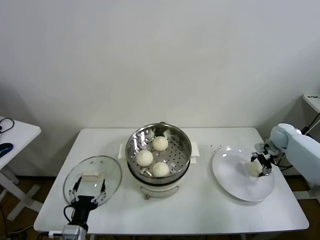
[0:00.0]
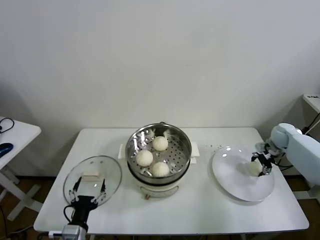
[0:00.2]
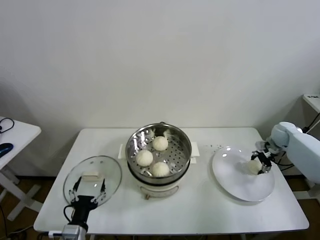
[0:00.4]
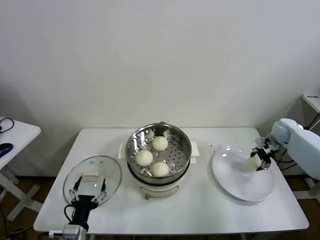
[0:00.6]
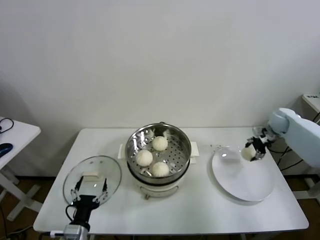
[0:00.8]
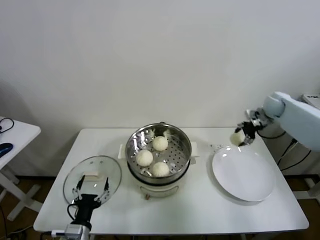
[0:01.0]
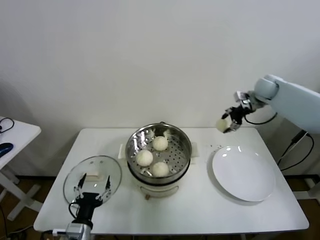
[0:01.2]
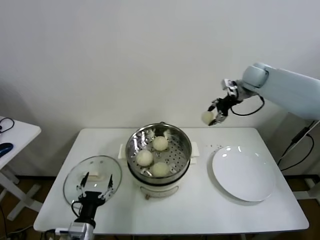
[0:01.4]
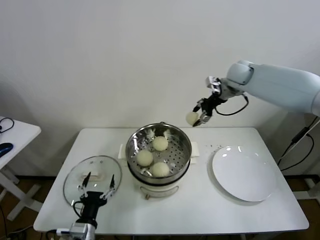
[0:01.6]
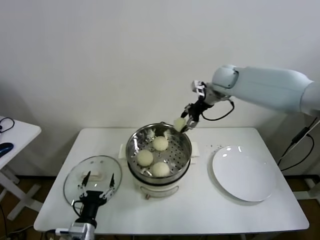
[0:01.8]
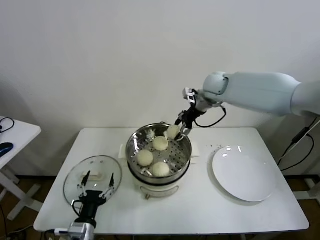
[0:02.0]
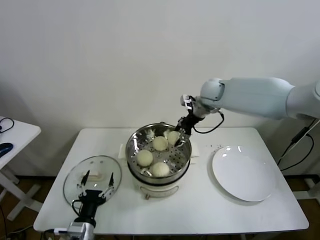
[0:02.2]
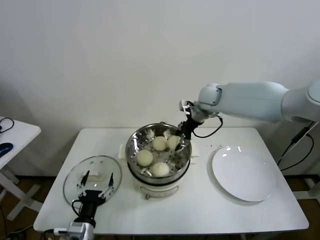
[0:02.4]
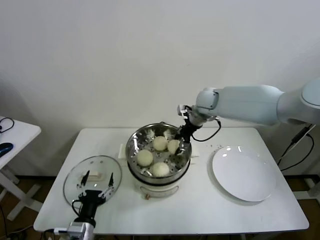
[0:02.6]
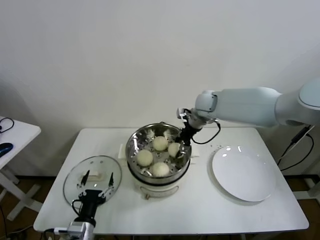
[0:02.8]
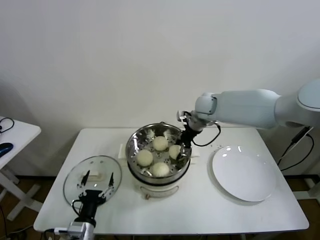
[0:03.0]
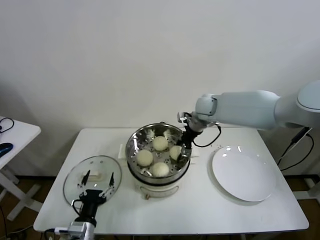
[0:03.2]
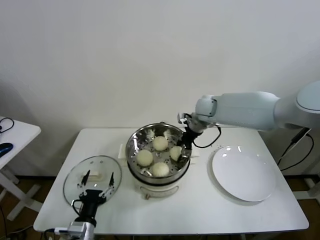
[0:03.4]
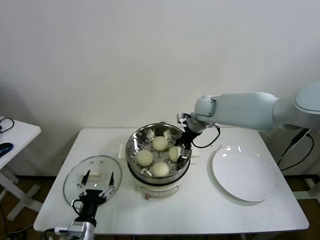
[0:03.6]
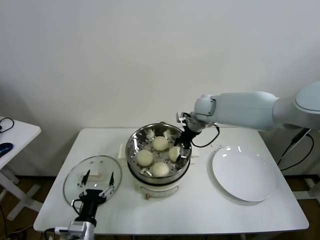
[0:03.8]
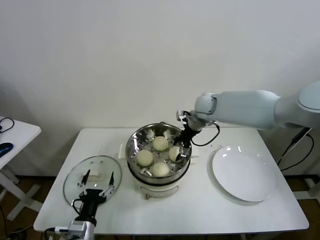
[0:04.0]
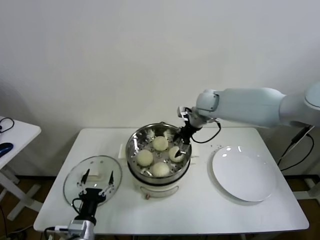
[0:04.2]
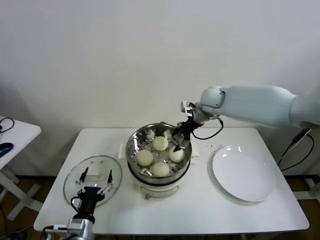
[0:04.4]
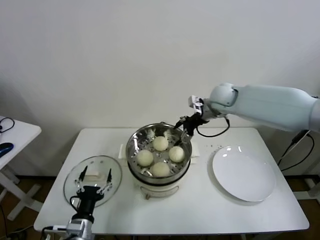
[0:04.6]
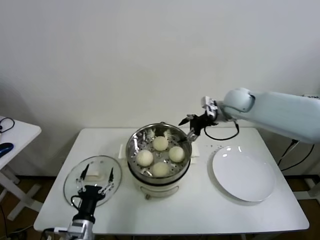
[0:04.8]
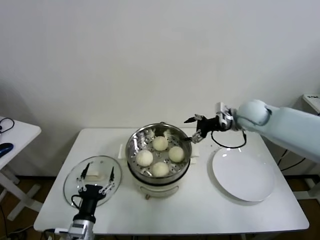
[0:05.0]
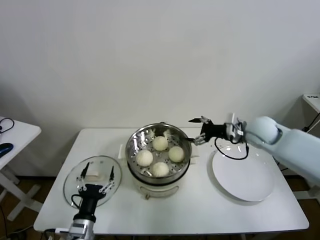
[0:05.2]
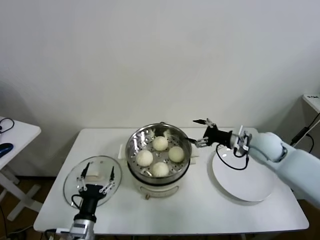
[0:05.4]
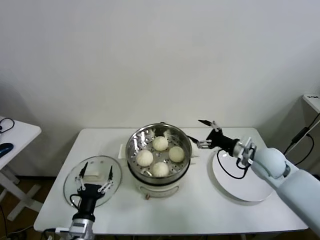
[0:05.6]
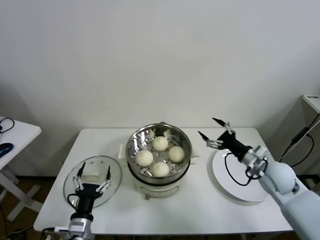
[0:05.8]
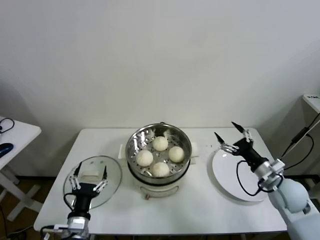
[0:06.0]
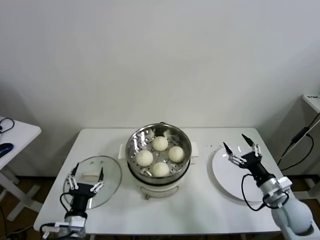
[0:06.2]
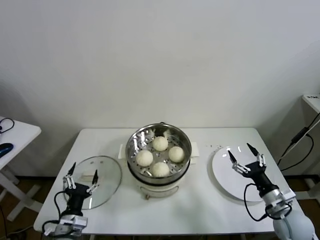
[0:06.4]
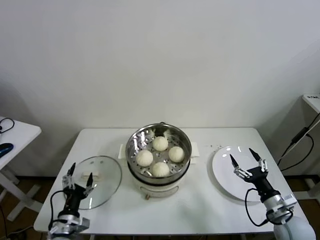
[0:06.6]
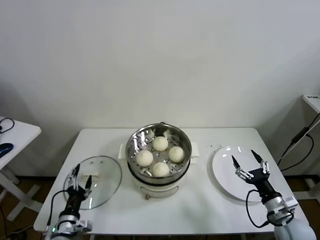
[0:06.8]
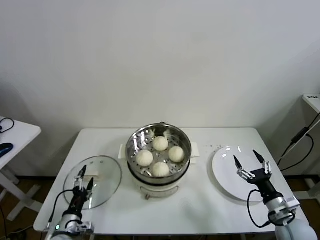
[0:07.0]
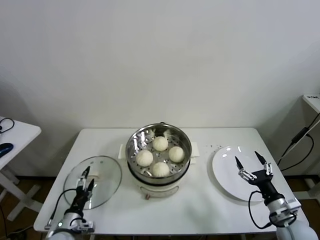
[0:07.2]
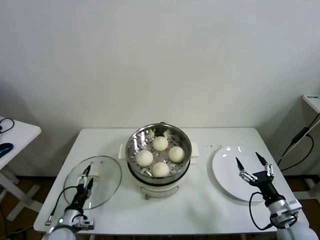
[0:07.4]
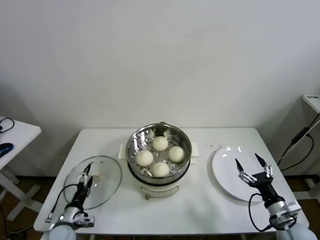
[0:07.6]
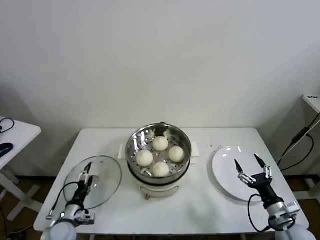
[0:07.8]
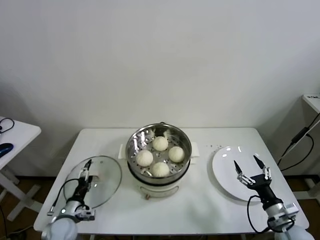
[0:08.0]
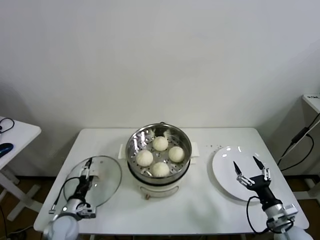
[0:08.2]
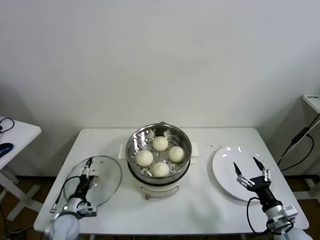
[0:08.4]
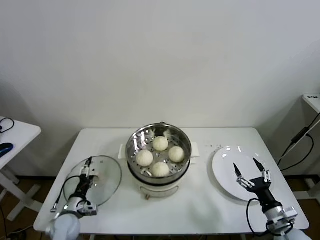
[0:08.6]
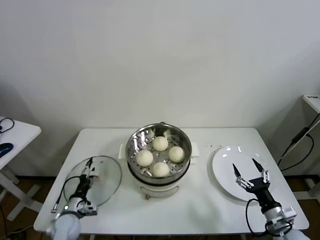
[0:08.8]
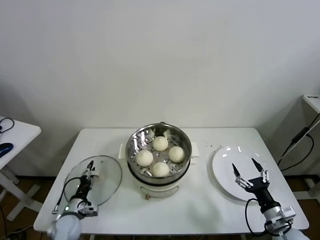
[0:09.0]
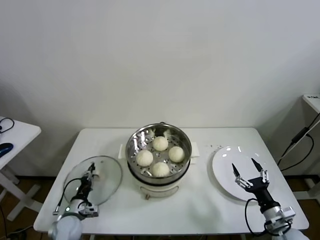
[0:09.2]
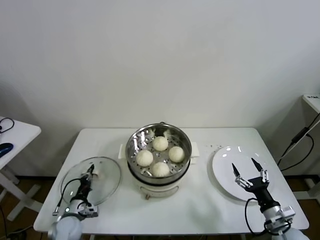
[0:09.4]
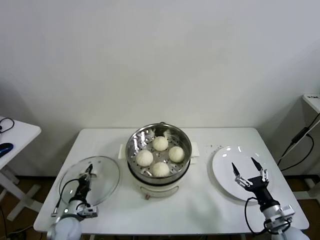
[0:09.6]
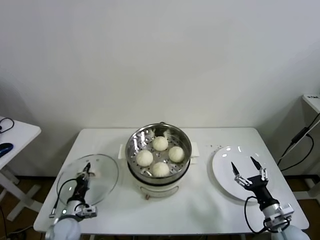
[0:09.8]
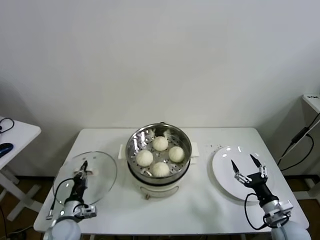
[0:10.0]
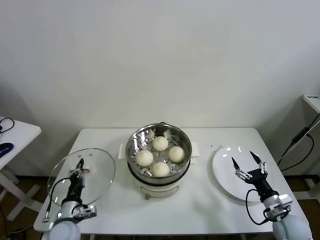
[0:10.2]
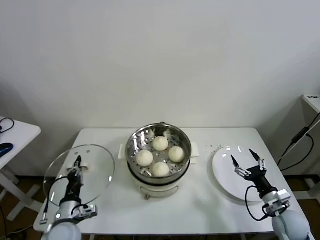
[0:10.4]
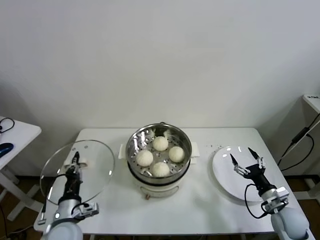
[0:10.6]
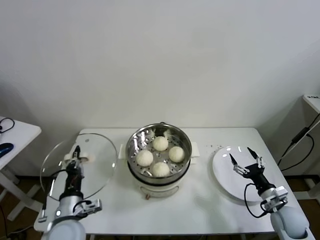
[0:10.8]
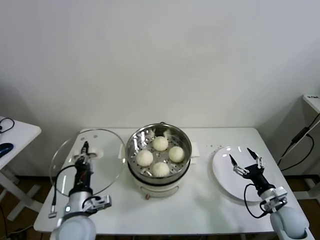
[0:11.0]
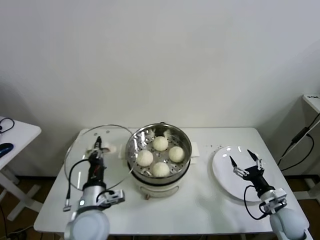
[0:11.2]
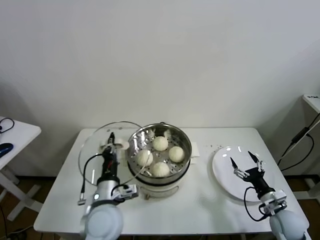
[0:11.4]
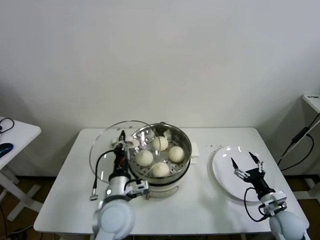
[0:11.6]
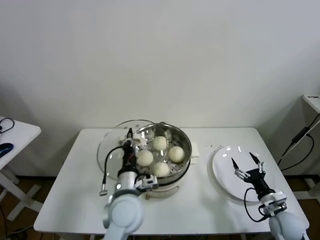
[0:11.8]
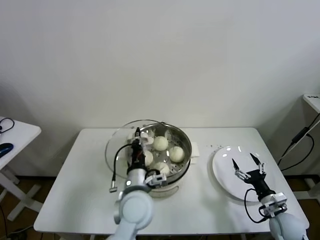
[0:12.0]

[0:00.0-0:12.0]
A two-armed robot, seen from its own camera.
Task of the whole recording: take steamed baozi put them in steamer.
Step, 0:00.2 to 0:03.8: Place the baozi on the steamer with right gripper.
Step, 0:04.0 to 0:09.2: Grasp the pot lid with left gripper.
0:00.0 to 0:01.6: The right gripper travels upward and to the left by approximately 35 cm, and closes up.
0:01.6 to 0:03.0: The right gripper heads downward and to the left, covering approximately 15 cm.
0:03.0 to 0:04.4: The right gripper opens its fingers.
0:04.4 to 0:06.0: The right gripper goes approximately 35 cm backward, to the right and downward.
0:06.0 to 0:07.6: The right gripper heads backward and downward, covering approximately 15 cm, while the left gripper travels to the left, downward and forward by about 15 cm.
0:07.6 to 0:09.0: The left gripper closes.
0:09.0 to 0:10.4: The left gripper moves upward, some 10 cm, and closes. The right gripper changes place by about 5 cm.
0:10.4 to 0:12.0: The left gripper travels to the right and upward by about 25 cm.

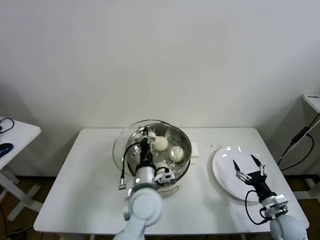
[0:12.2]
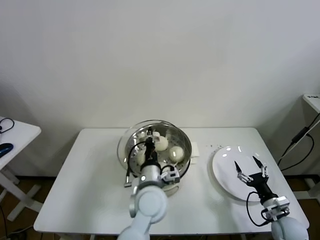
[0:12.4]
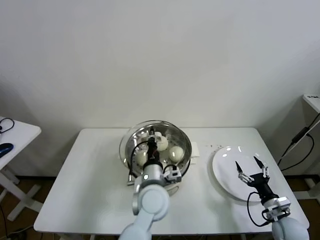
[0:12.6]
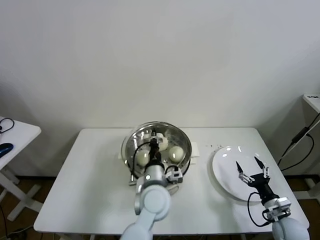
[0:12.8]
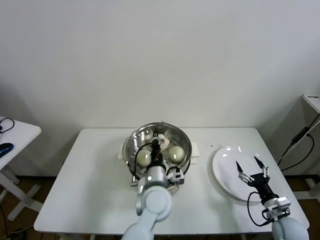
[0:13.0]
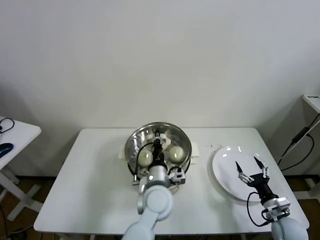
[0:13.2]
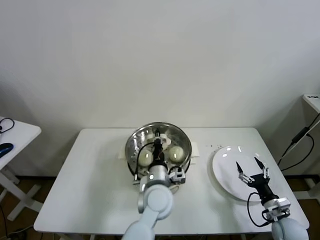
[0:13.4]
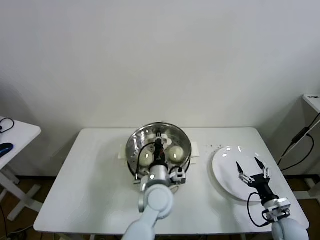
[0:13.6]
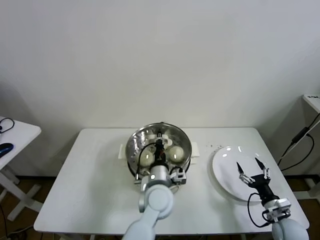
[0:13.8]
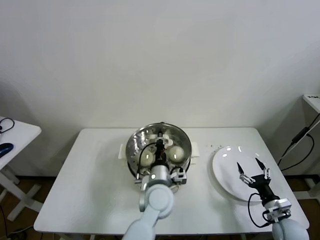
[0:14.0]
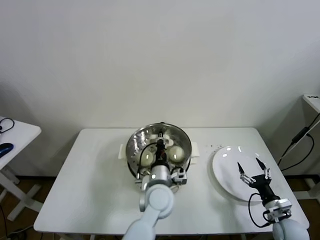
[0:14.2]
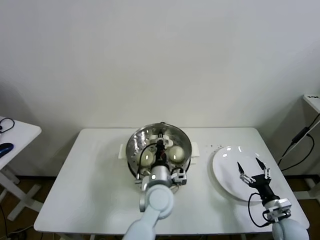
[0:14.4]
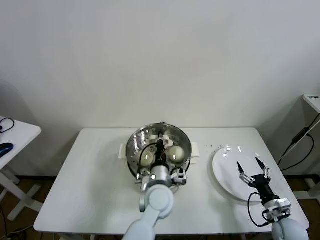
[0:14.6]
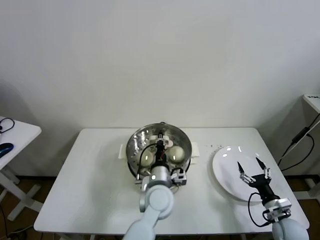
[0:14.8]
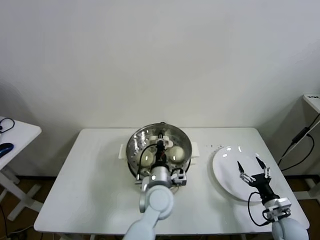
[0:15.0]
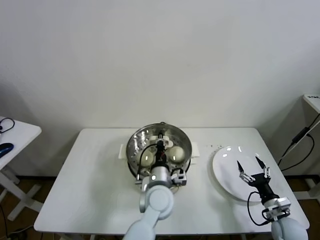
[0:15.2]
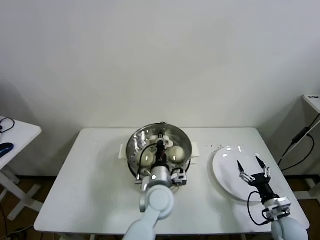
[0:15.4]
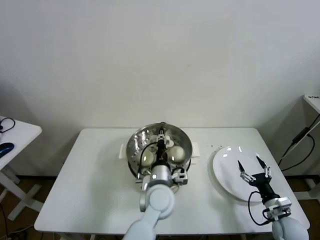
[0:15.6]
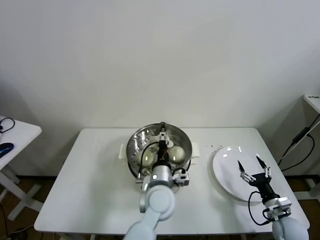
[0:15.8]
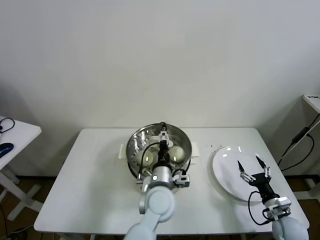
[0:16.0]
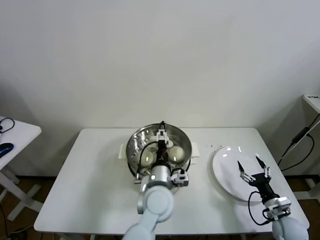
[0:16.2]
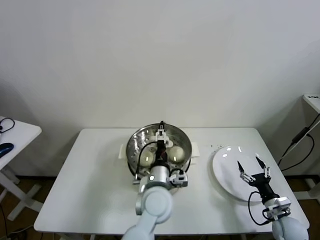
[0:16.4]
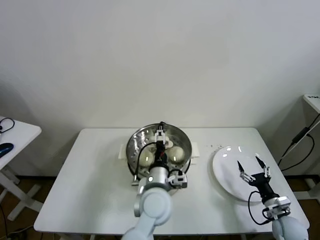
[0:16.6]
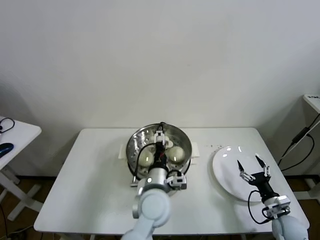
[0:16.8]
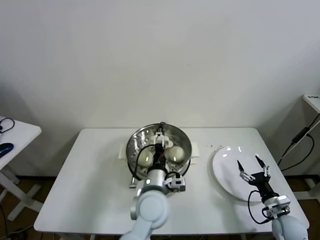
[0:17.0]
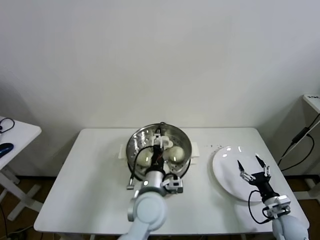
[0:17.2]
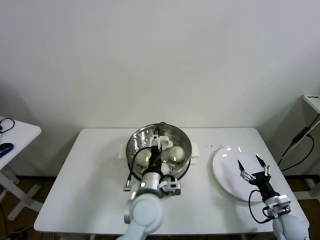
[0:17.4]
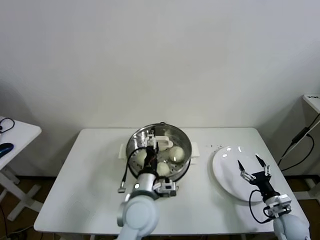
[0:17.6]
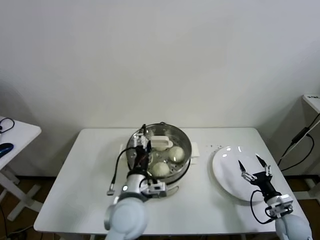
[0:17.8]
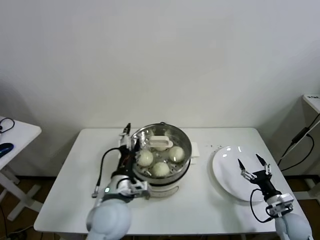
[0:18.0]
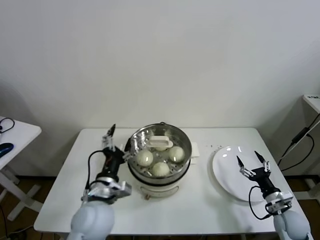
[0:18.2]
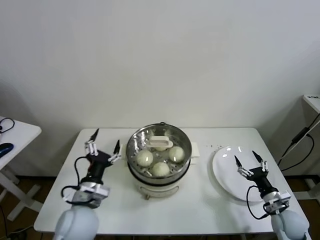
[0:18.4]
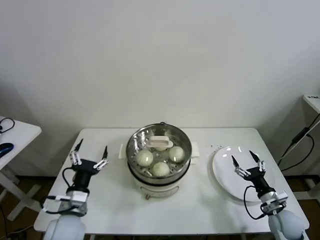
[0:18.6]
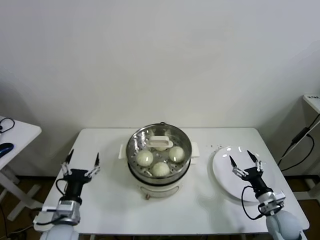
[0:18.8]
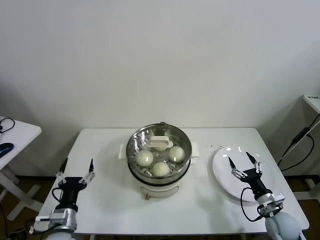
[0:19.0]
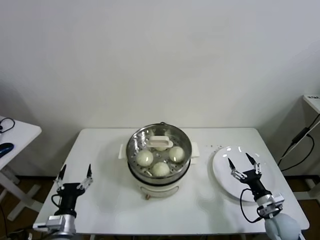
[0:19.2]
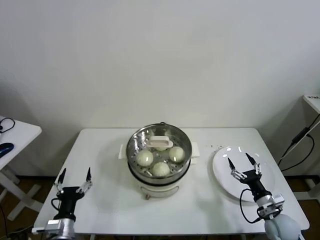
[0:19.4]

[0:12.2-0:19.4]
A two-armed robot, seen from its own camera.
Task of the whole recording: take steamed baozi put them in steamer.
Step, 0:12.2 to 0:16.8: Place the baozi on the steamer with right gripper.
0:12.2 to 0:13.6: The left gripper shifts by about 5 cm.
0:13.6 to 0:15.0: The two grippers keep their place.
0:15.0 to 0:16.6: The left gripper opens up.
0:16.6 to 0:18.0: The left gripper shifts about 10 cm to the left.
0:18.0 to 0:19.4: The left gripper goes some 25 cm to the left and downward.
